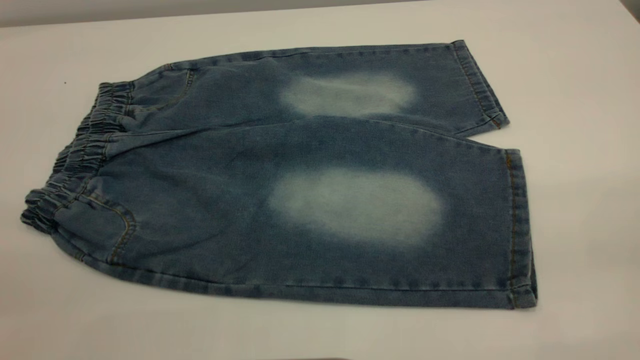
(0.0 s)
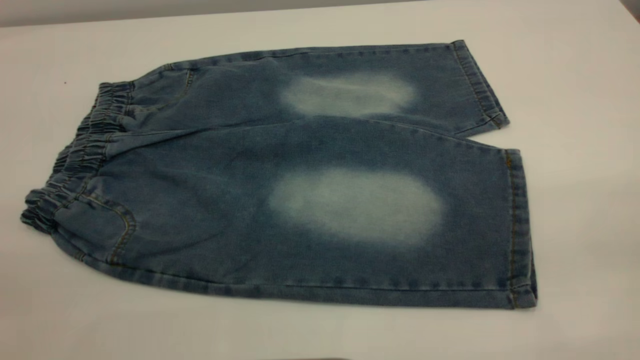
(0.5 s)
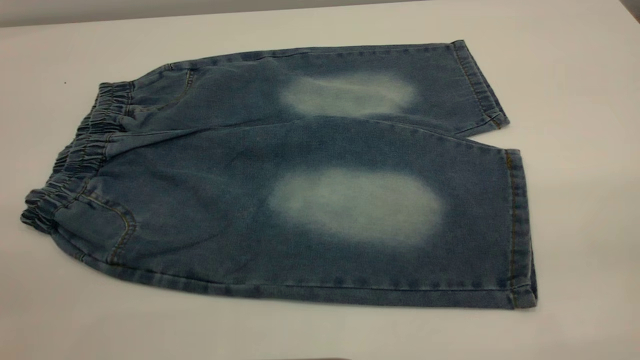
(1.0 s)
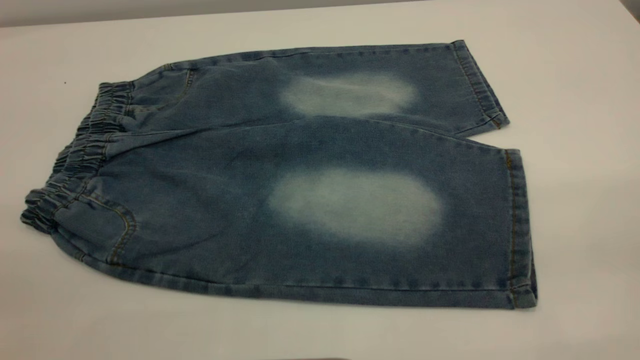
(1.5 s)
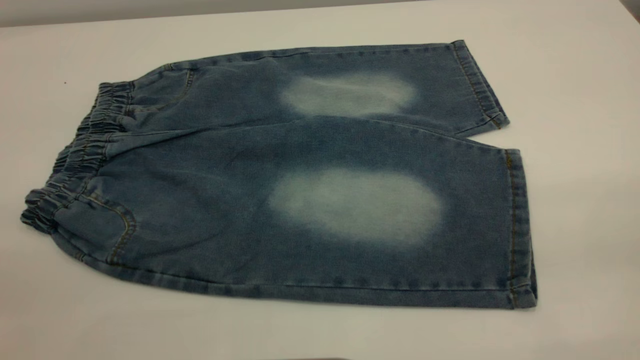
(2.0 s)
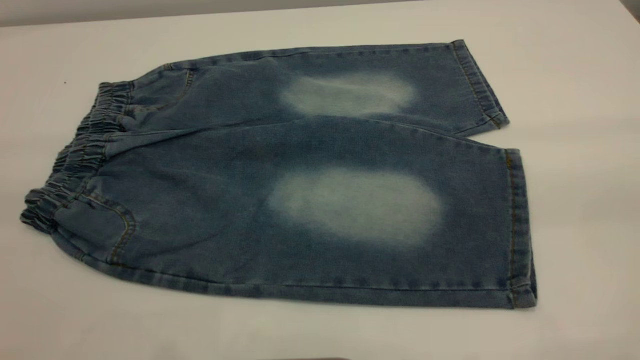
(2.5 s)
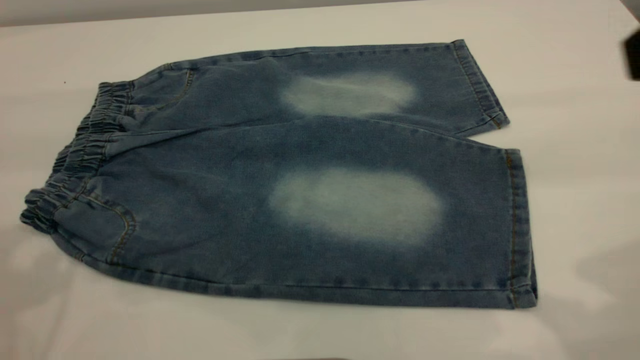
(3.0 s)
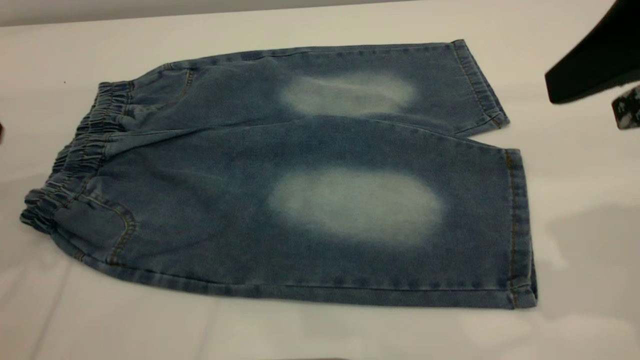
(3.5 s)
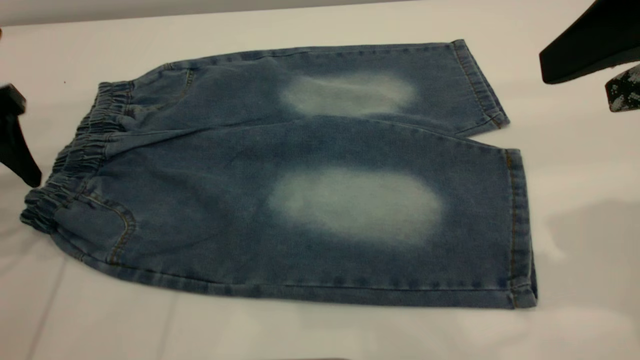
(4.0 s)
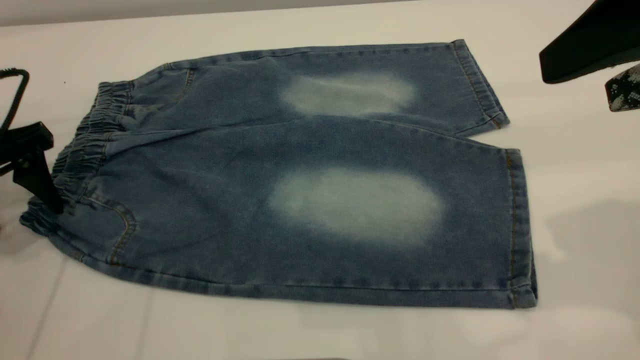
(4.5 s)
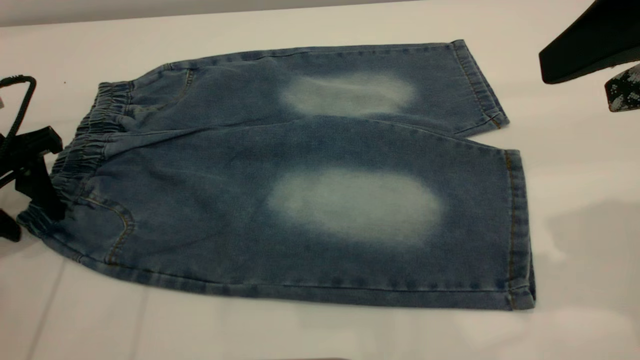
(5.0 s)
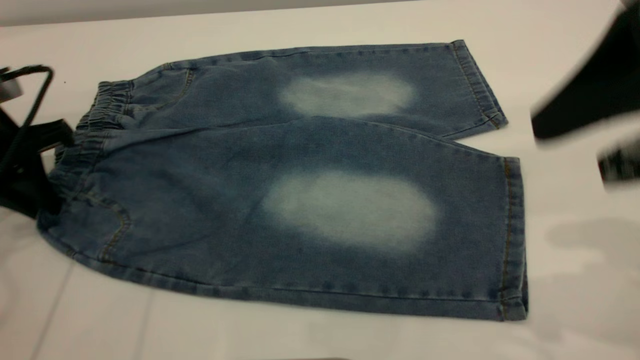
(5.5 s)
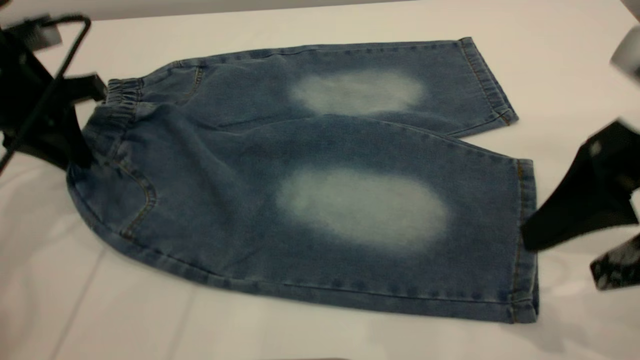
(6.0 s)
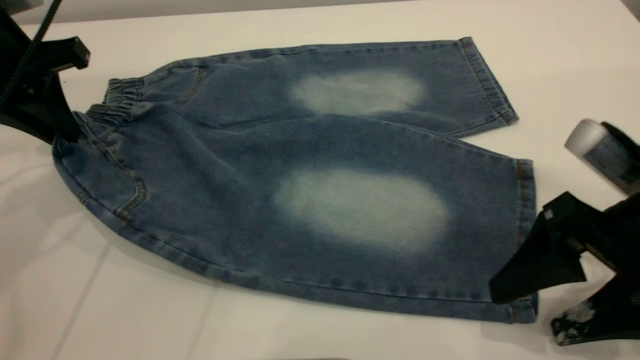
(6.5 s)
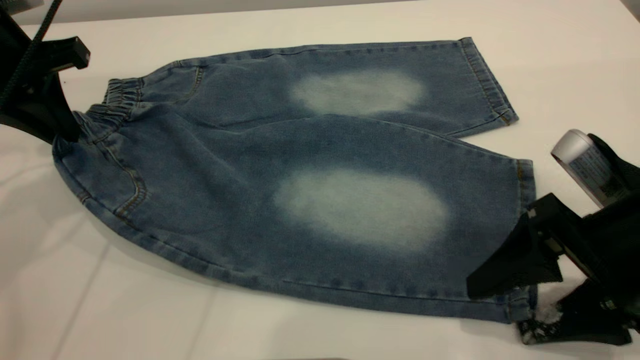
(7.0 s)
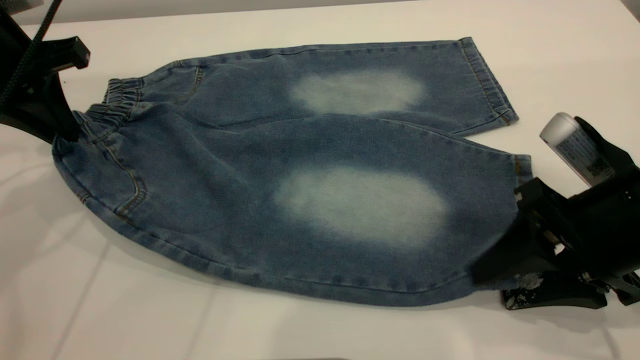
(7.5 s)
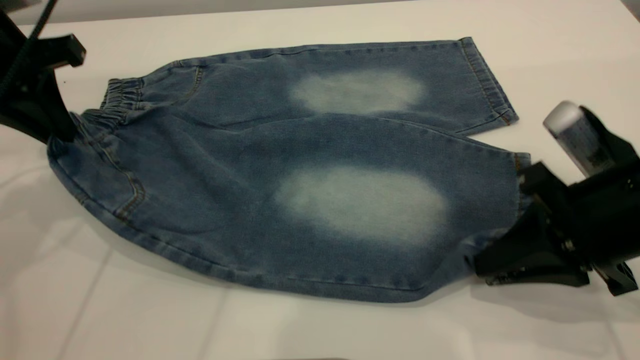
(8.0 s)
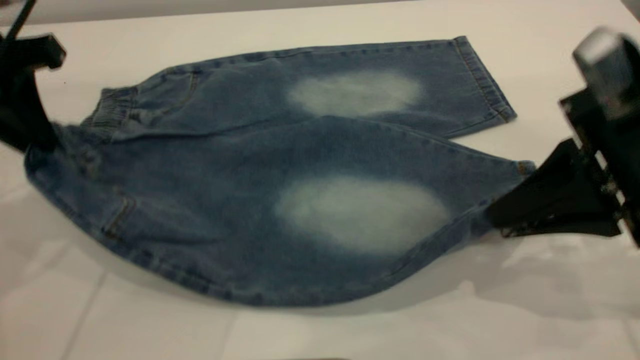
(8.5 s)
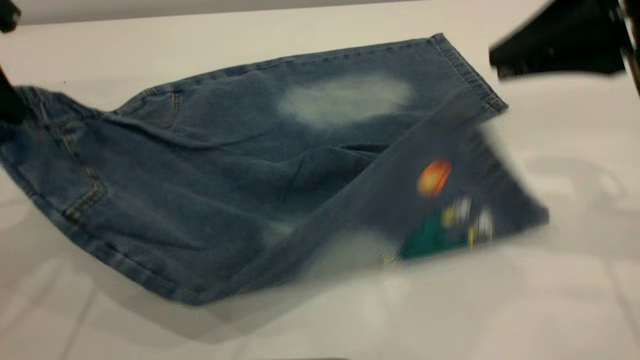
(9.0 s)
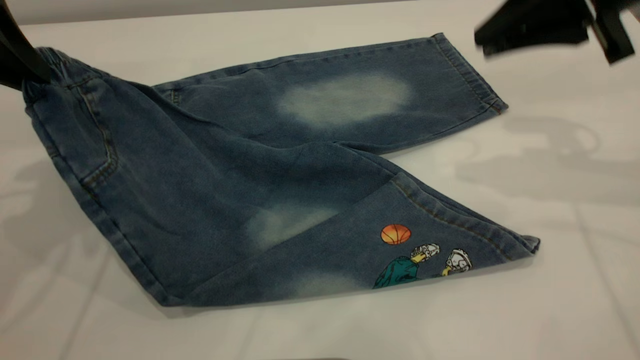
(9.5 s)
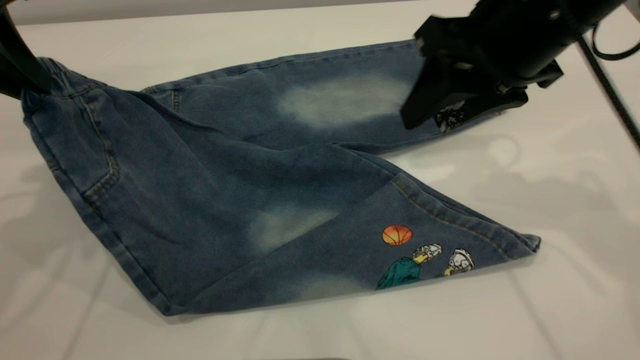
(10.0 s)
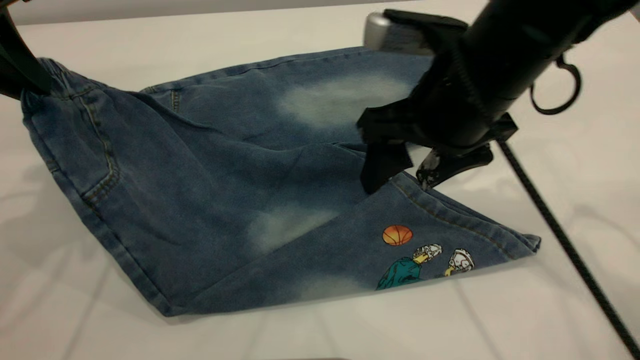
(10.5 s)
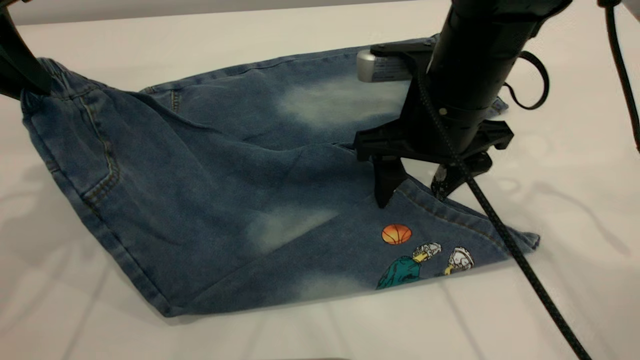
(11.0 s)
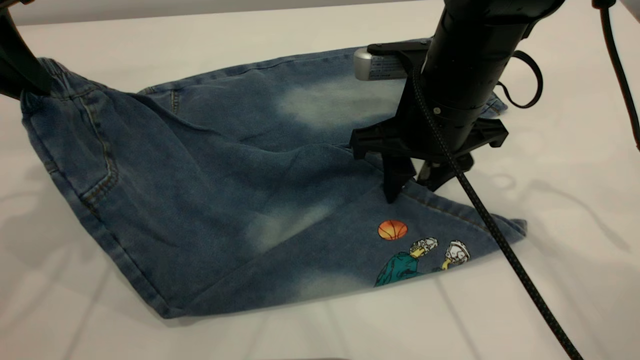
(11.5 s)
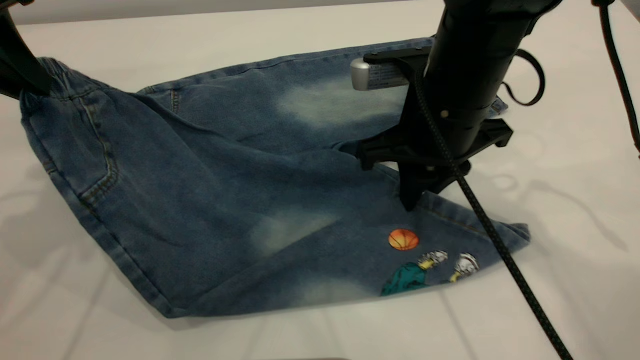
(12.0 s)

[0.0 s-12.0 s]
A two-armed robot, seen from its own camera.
0.0 to 2.0 s: Both grippers stay about where they are.
2.0 to 4.0 s: The left gripper travels forward and downward by some 35 cm; the right gripper shifts some 20 cm forward.
4.0 to 6.0 s: The left gripper moves roughly 5 cm, and closes; the right gripper goes about 10 cm downward.
6.0 to 8.0 s: The right gripper is displaced downward by approximately 5 cm, and closes up.
8.0 to 10.0 s: The right gripper goes some 15 cm upward, forward and to the left, and opens up, while the left gripper travels upward by roughly 5 cm.
10.0 to 12.0 s: The right gripper moves downward and to the left, about 10 cm, and closes its fingers.

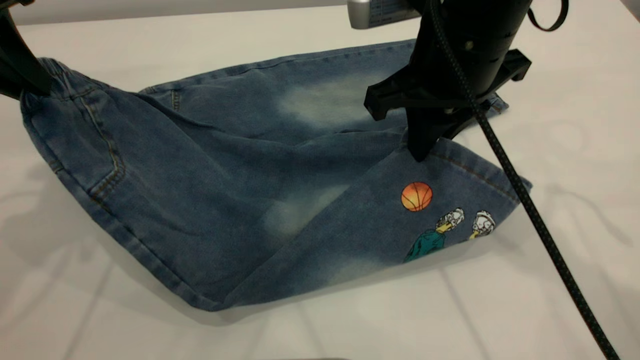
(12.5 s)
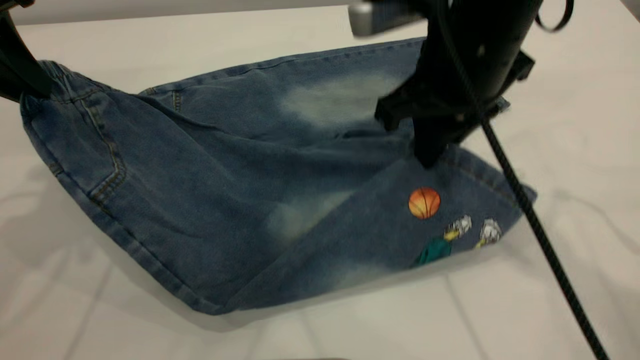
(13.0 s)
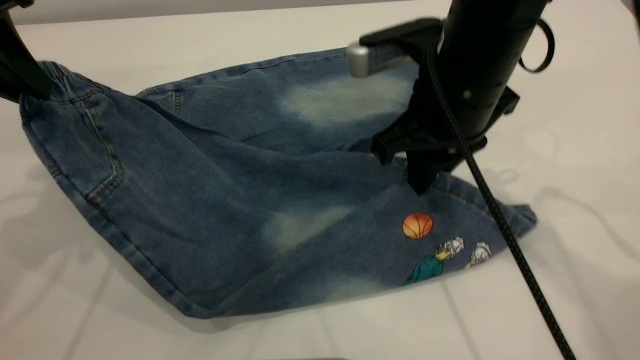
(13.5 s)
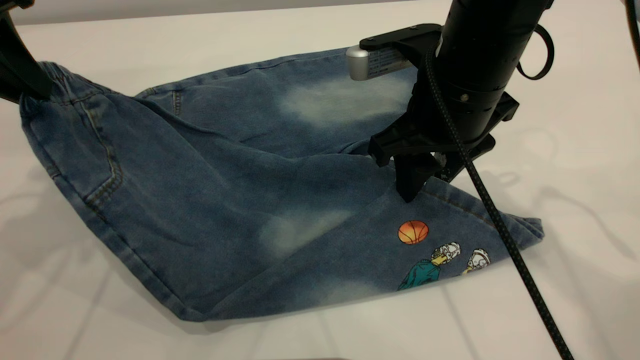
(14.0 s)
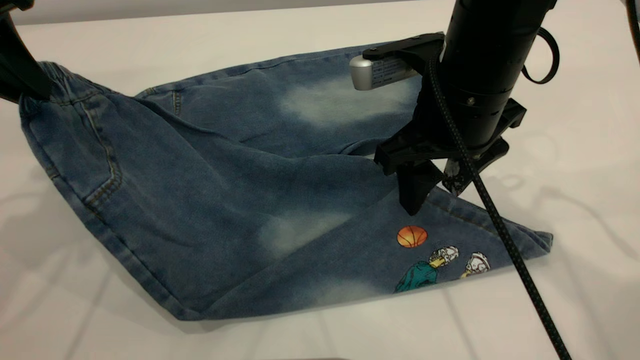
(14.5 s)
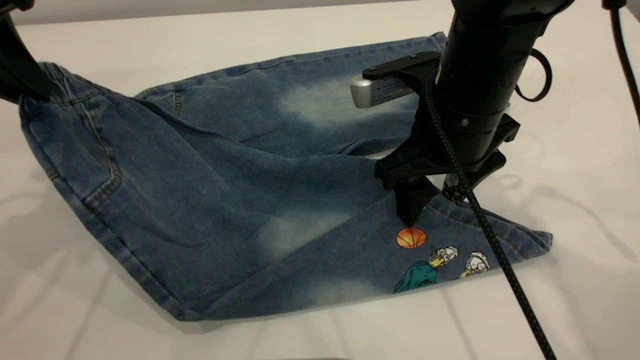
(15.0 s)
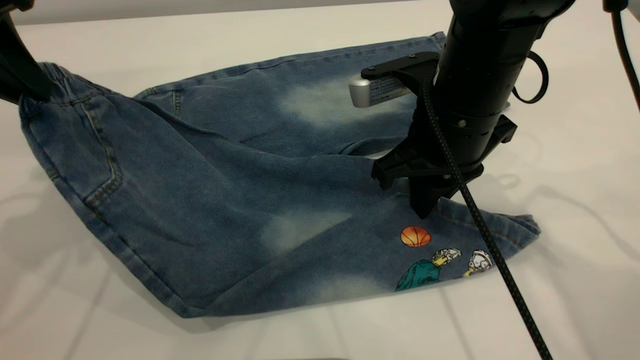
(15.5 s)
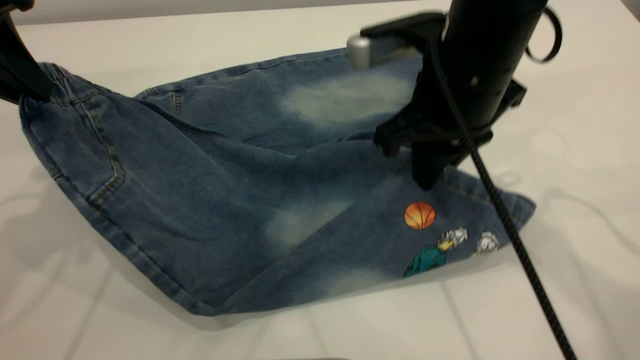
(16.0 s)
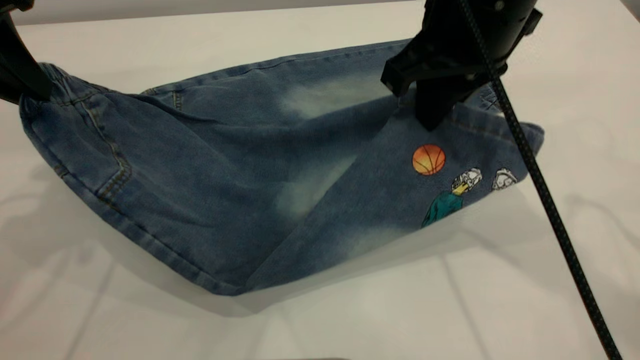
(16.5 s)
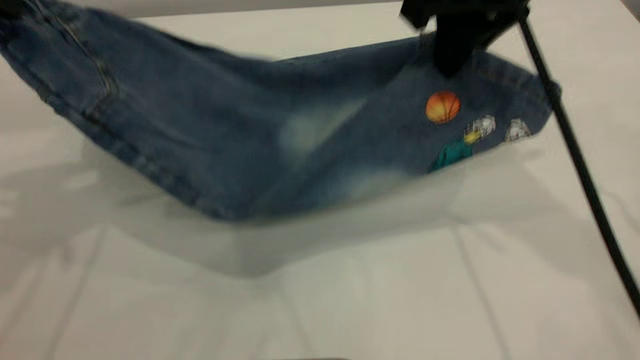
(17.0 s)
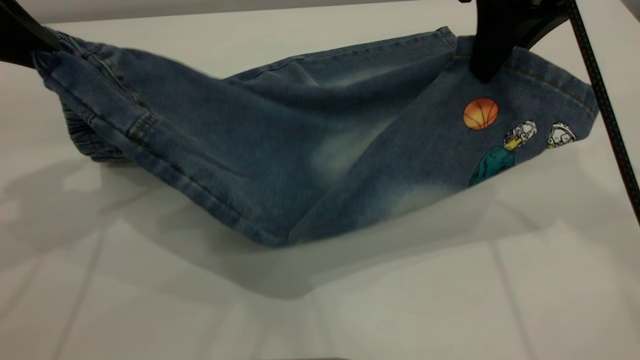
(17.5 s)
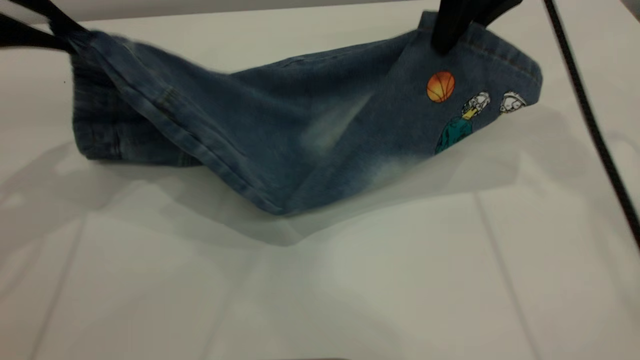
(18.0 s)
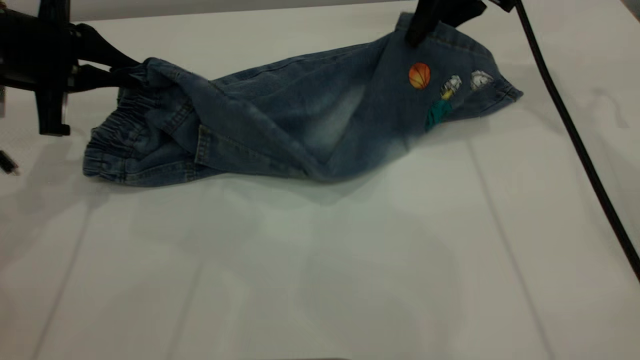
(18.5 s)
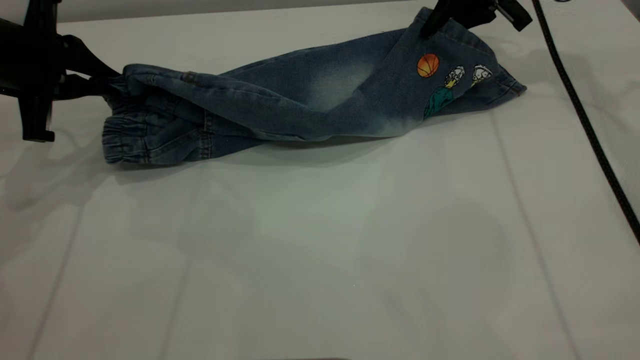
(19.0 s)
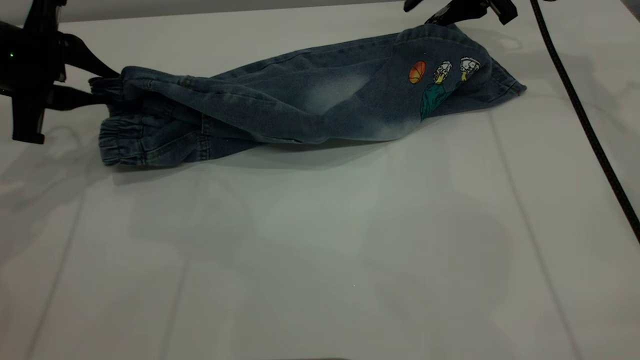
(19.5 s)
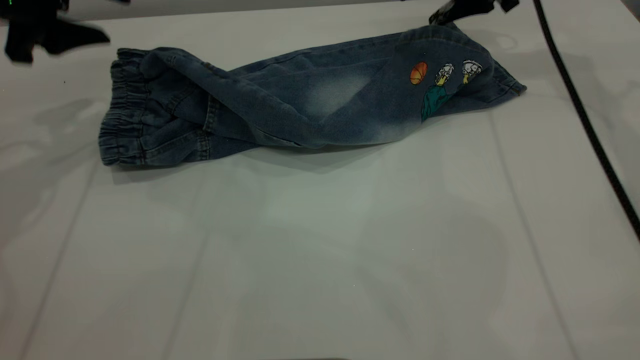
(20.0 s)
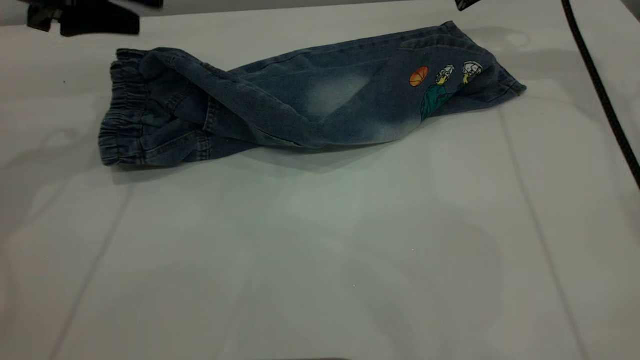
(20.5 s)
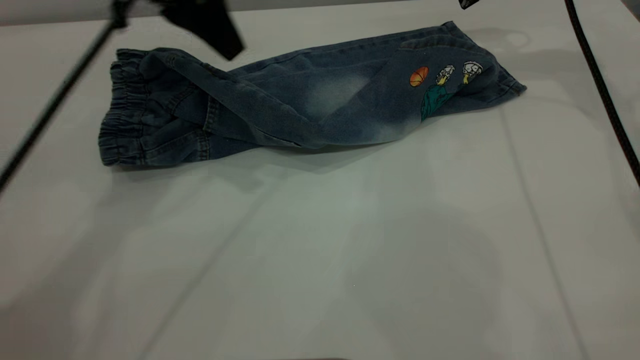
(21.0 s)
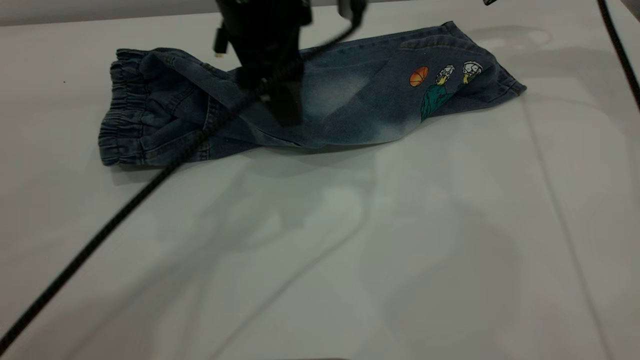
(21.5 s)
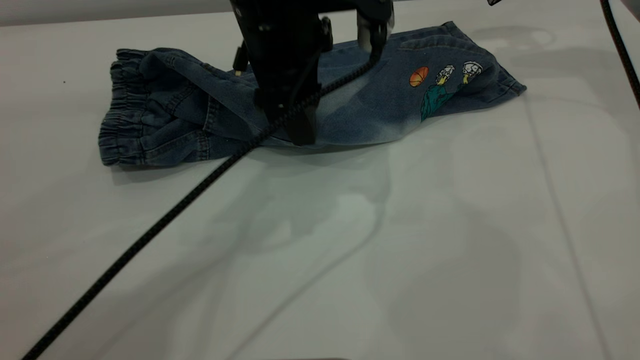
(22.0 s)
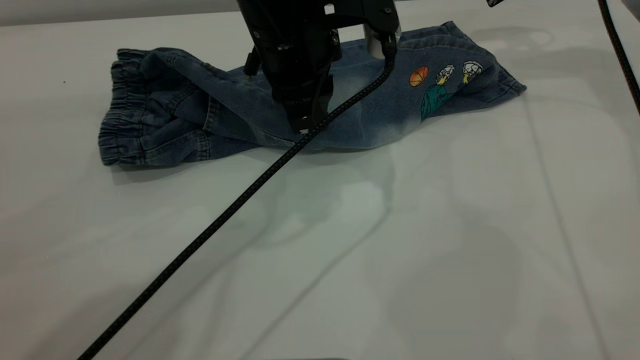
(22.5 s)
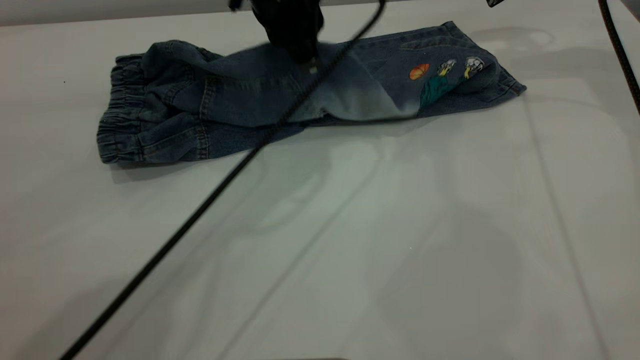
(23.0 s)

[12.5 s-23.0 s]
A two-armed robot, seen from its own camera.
12.5 to 14.5 s: The right gripper opens its fingers.
14.5 to 16.5 s: The right gripper is displaced upward by approximately 5 cm, and closes up.
16.5 to 19.0 s: The right gripper goes about 25 cm forward and to the right; the left gripper heads downward and forward, covering about 10 cm.
19.0 to 21.0 s: The right gripper travels upward by approximately 5 cm, and opens its fingers. The left gripper moves to the right and upward, some 20 cm, and opens.
21.0 to 23.0 s: The left gripper is displaced to the right by some 10 cm, and closes up.
